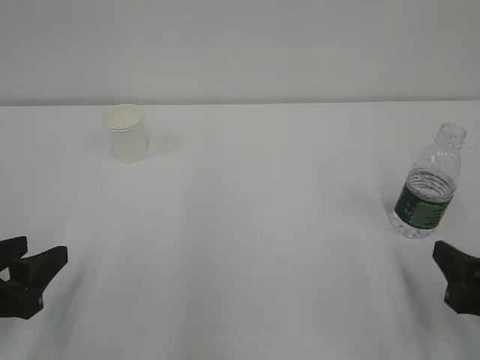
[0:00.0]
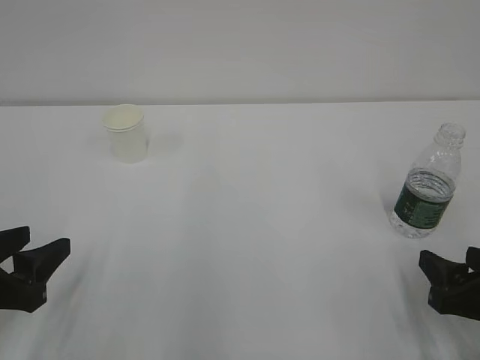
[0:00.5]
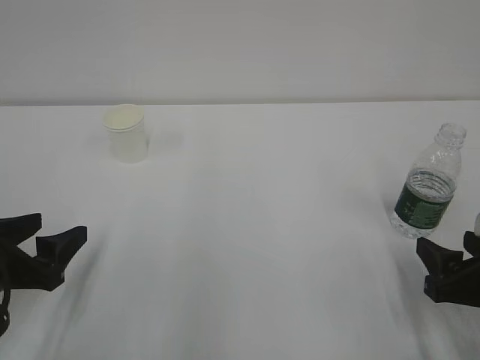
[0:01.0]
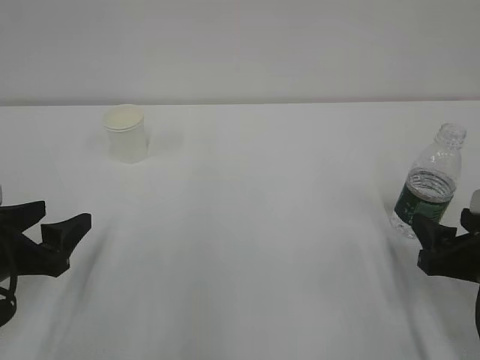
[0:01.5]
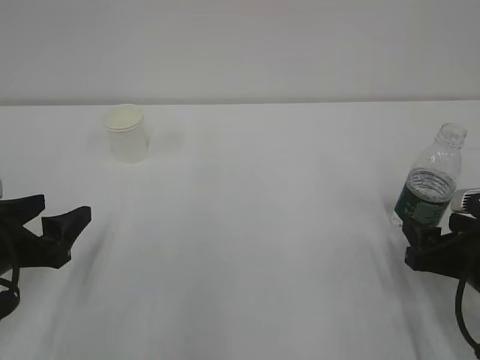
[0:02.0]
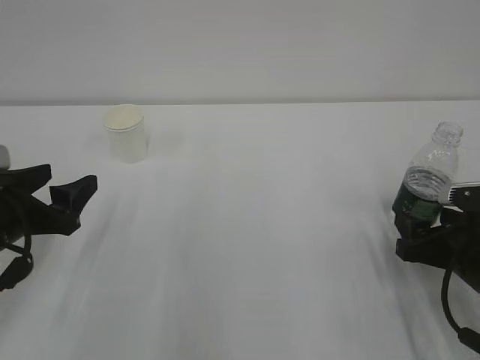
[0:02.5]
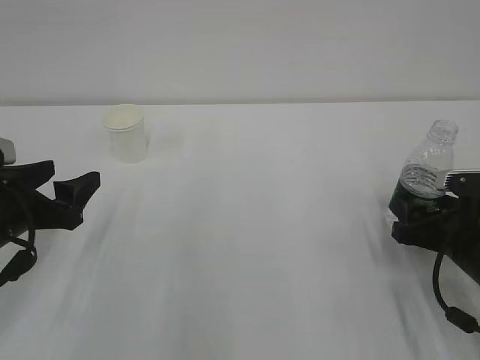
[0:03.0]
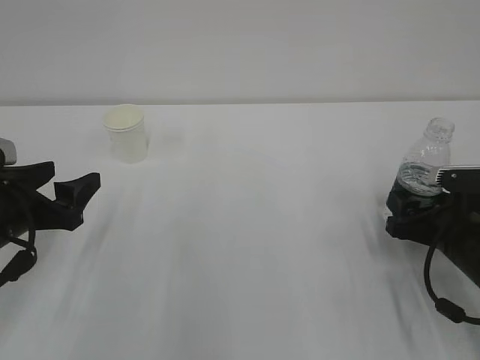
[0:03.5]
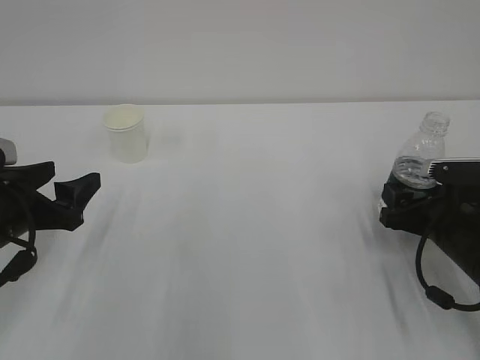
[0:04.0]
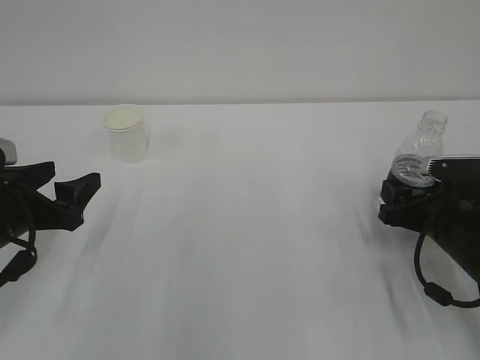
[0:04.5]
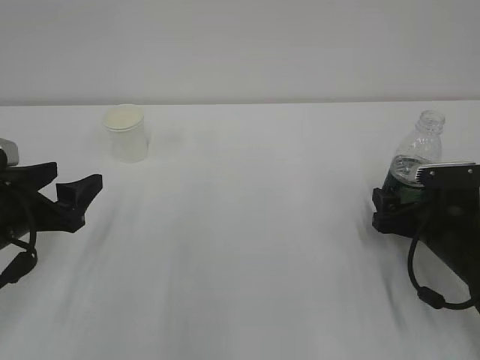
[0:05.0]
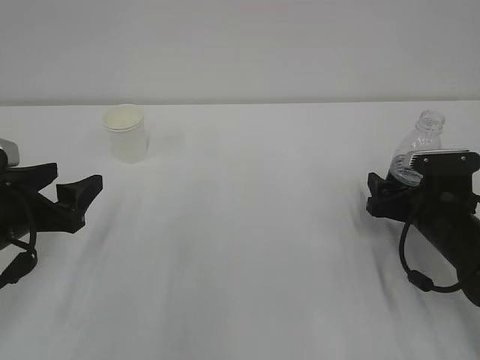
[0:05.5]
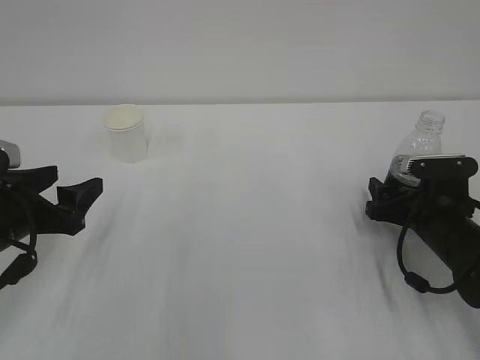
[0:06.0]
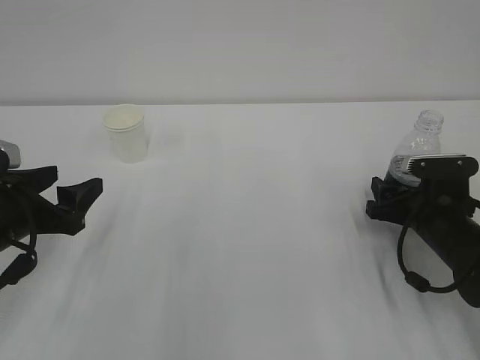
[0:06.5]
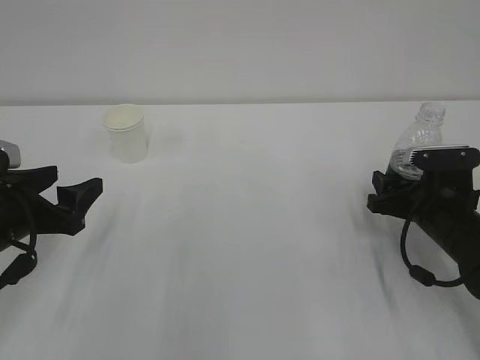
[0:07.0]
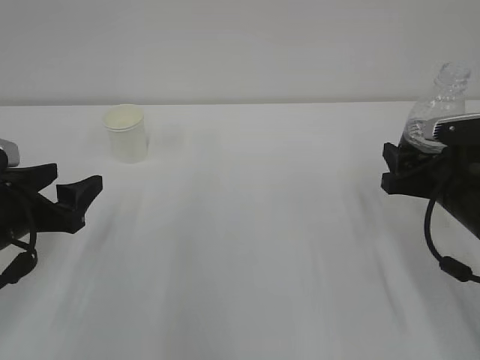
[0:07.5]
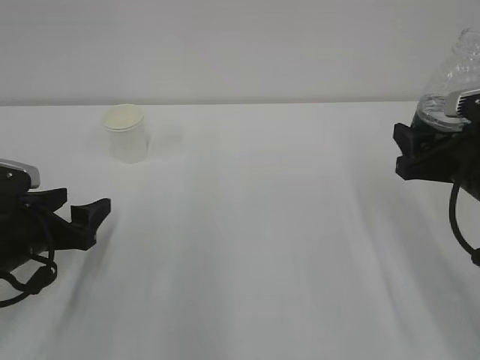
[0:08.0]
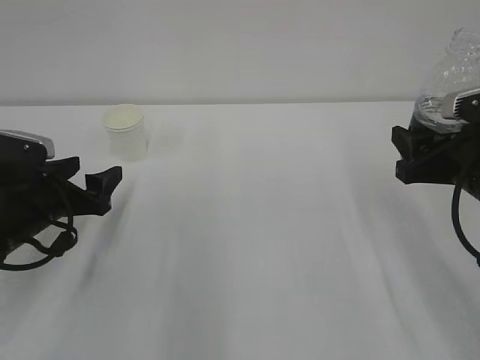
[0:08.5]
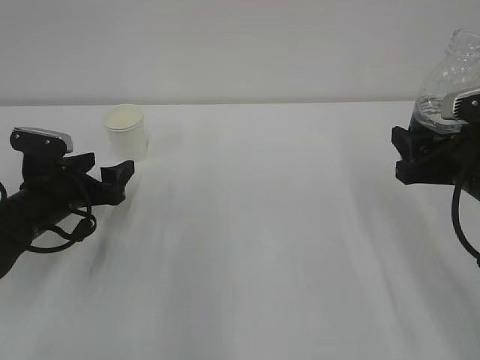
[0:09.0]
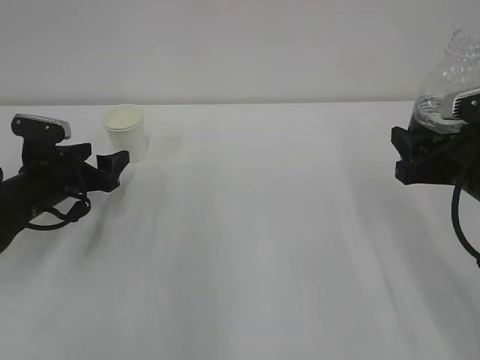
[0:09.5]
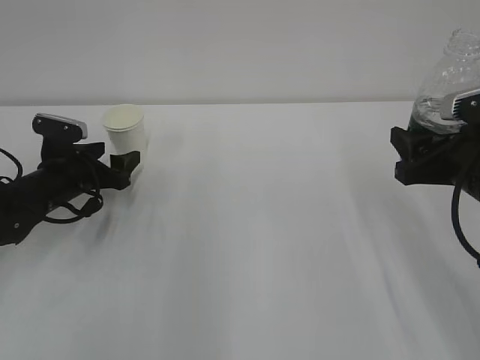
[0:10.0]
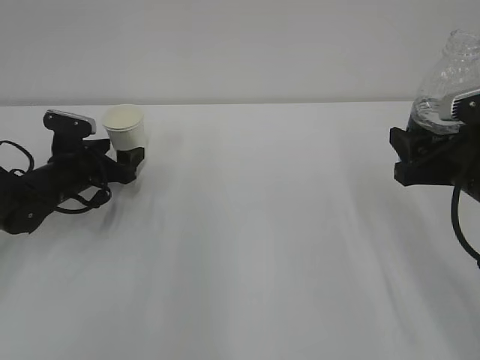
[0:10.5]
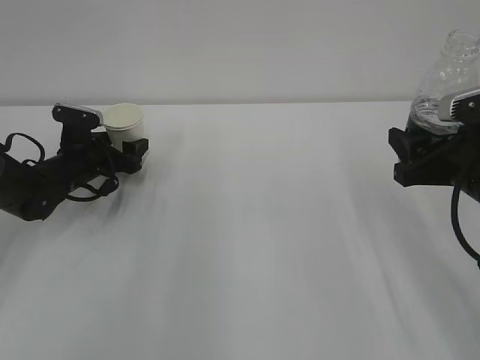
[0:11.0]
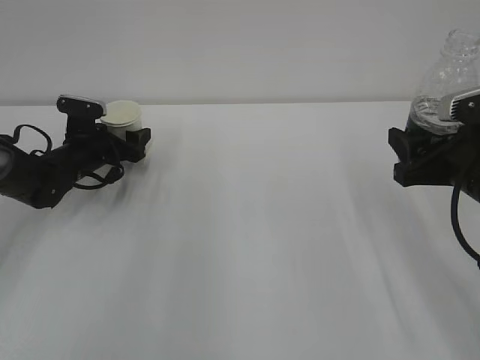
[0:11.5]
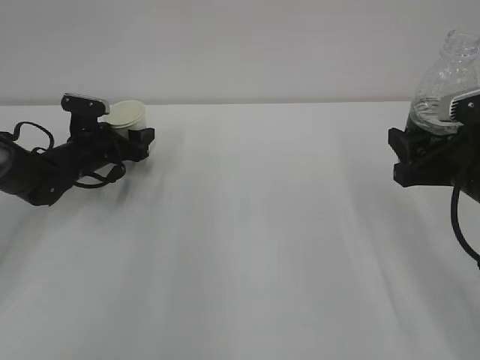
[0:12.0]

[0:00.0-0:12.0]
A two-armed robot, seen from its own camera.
0:00.0 to 0:02.0: The grippers both shift forward by about 5 cm. The left gripper opens up.
0:02.0 to 0:04.0: The right gripper moves forward, about 5 cm.
0:04.0 to 0:06.0: The grippers stay close to where they were, moving slightly.
0:06.0 to 0:08.0: The right gripper shifts roughly 10 cm upward.
0:08.0 to 0:10.0: The left gripper heads forward, covering some 15 cm.
0:10.0 to 0:12.0: The left gripper is displaced forward by approximately 10 cm, and closes its fingers.

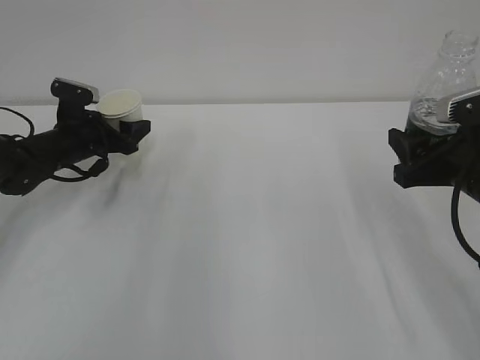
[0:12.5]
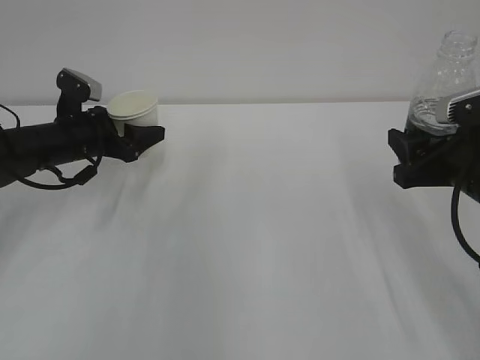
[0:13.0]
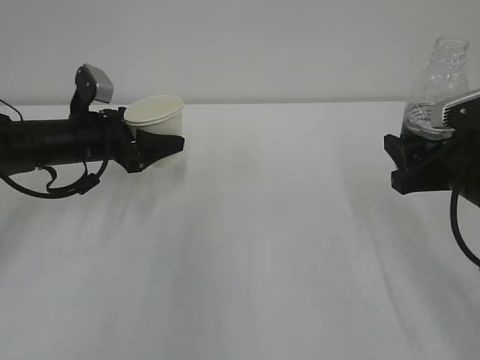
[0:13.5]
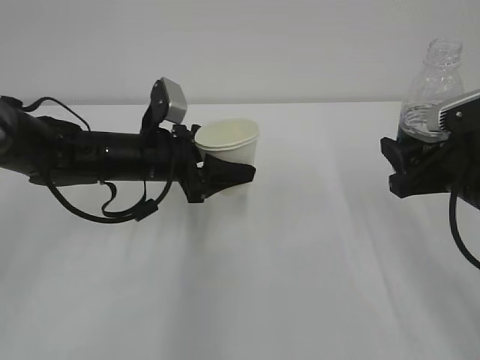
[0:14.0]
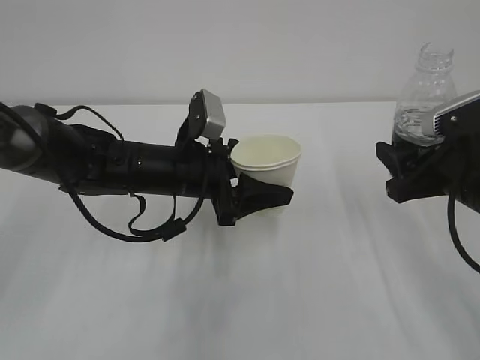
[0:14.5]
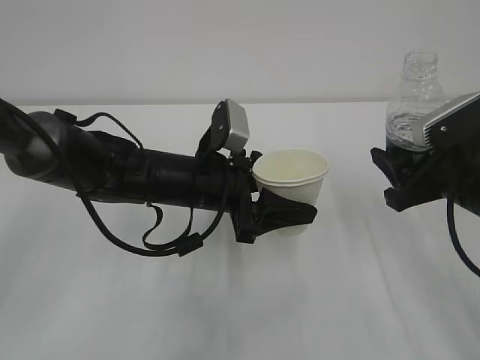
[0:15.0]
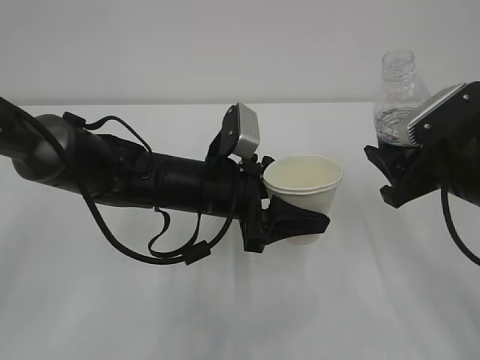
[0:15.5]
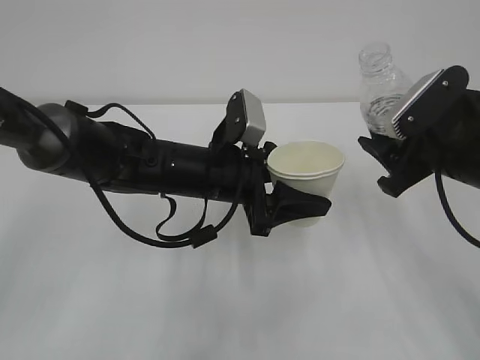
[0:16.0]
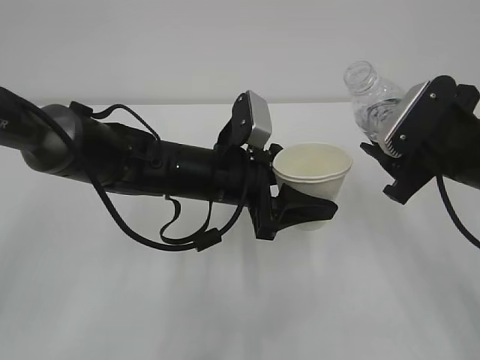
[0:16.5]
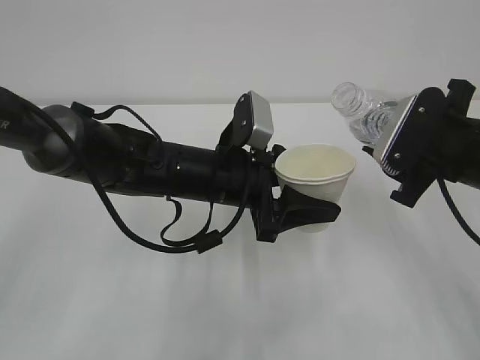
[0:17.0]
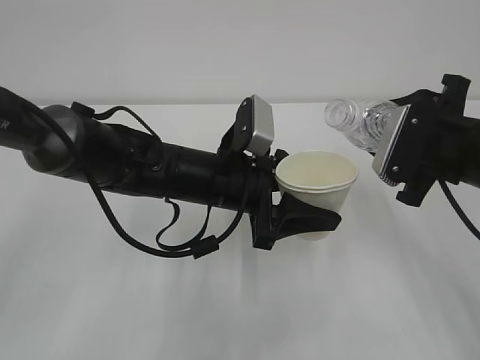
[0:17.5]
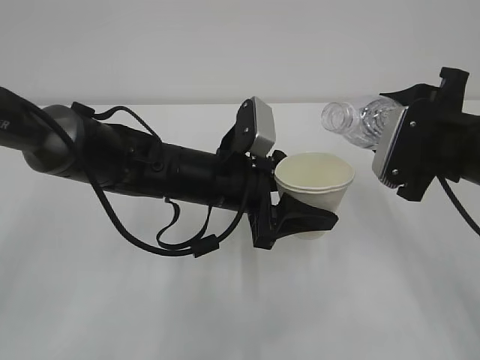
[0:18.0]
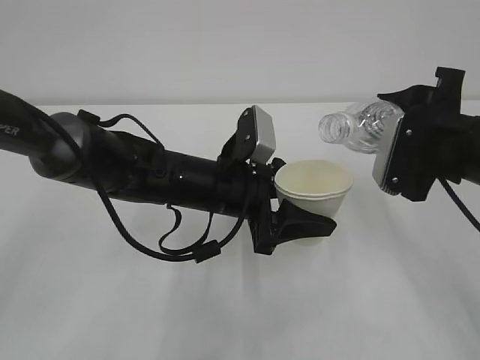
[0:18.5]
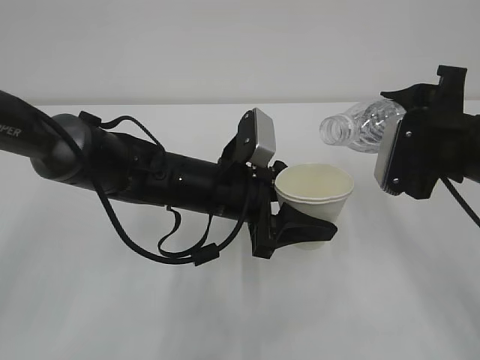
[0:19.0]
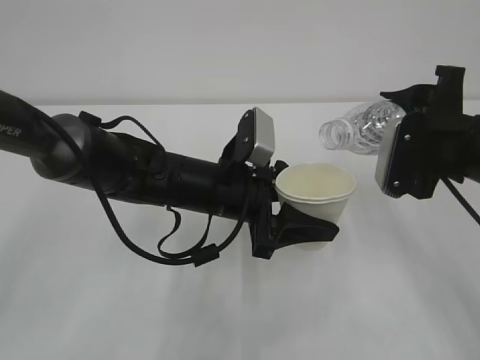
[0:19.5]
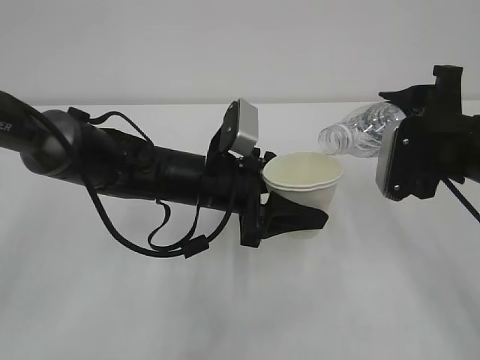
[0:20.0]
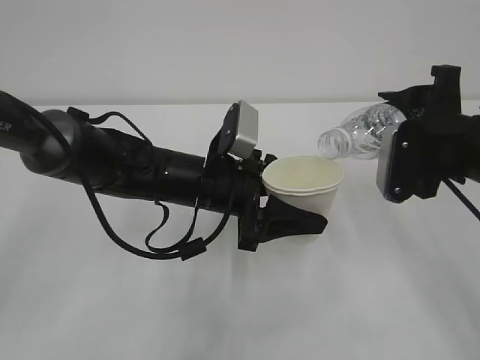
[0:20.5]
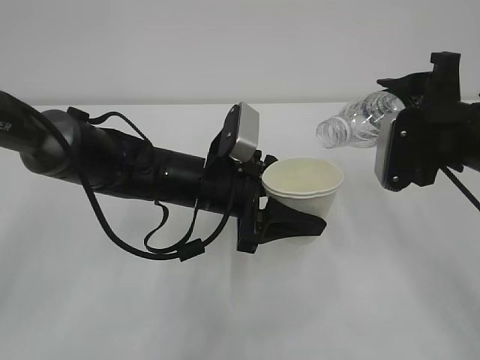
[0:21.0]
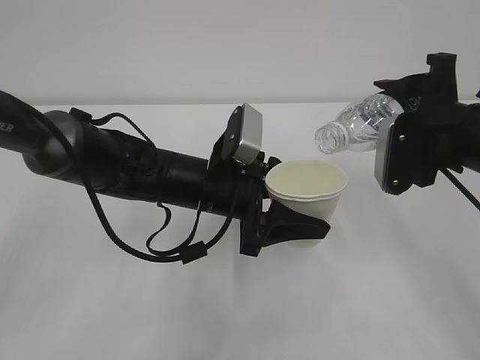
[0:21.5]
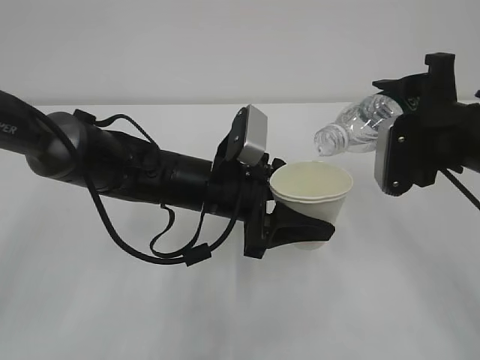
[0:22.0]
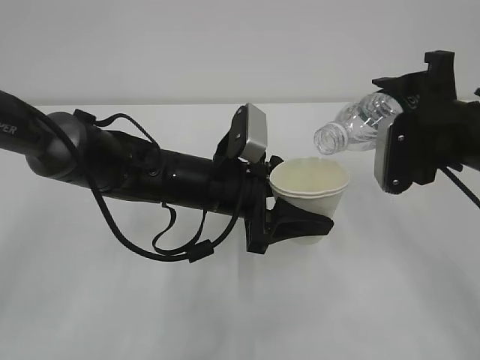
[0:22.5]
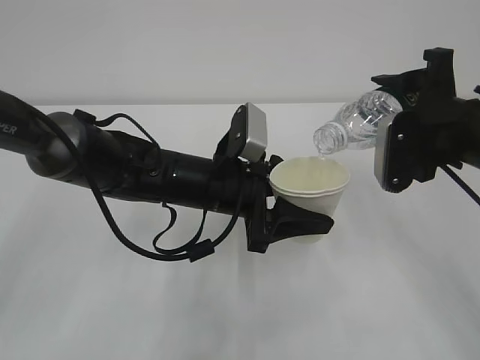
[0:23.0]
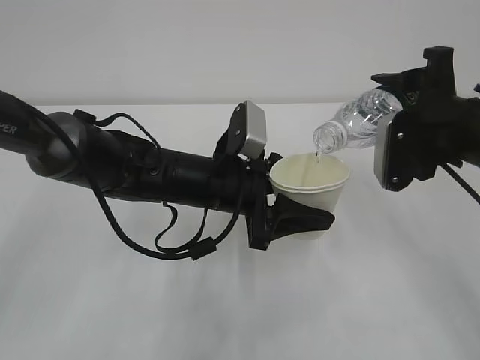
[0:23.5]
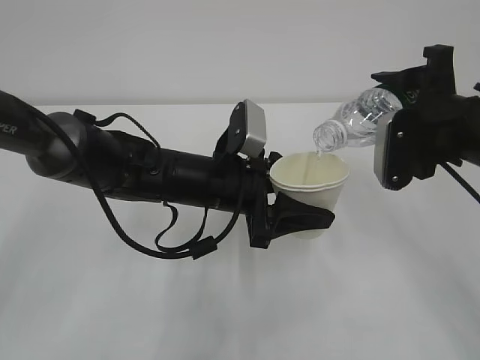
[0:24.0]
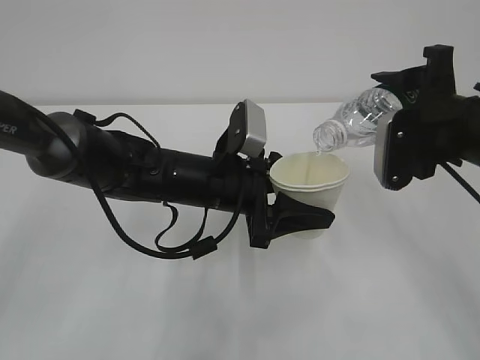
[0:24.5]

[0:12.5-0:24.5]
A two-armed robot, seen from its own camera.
0:12.5 to 0:14.5: The left gripper goes approximately 20 cm to the right and backward.
0:14.5 to 0:16.5: The left gripper ends up approximately 5 cm from where it was.
0:18.5 to 0:22.5: The grippers move only a little.
0:22.5 to 0:24.5: Both grippers stay put.

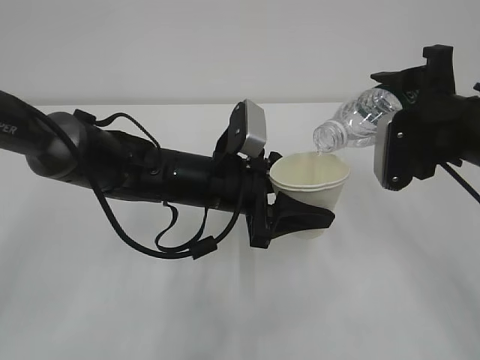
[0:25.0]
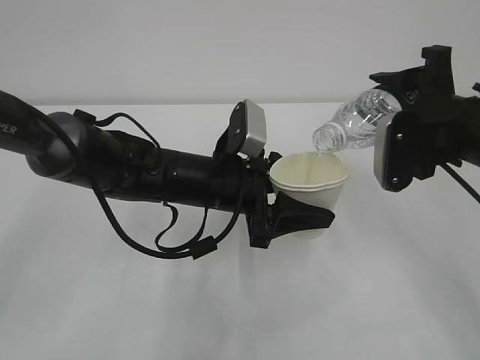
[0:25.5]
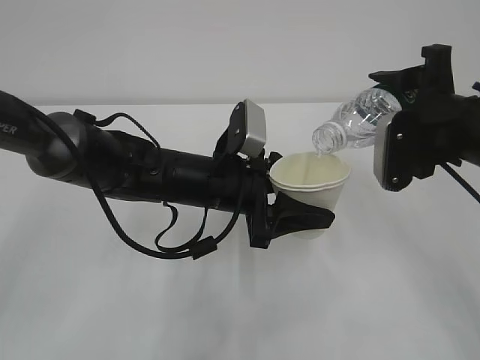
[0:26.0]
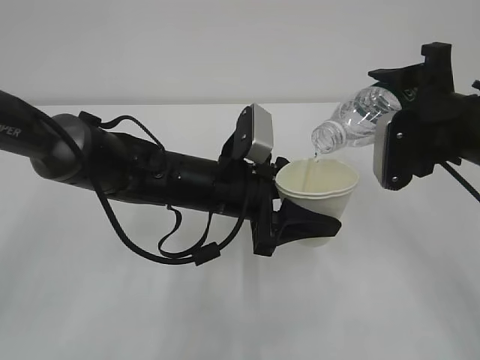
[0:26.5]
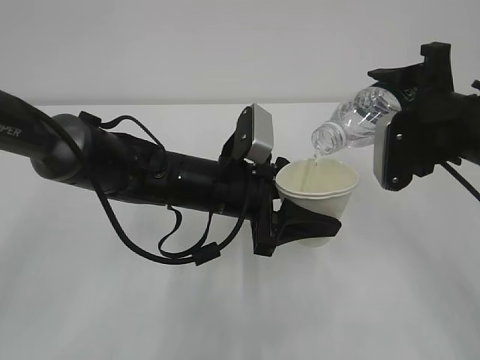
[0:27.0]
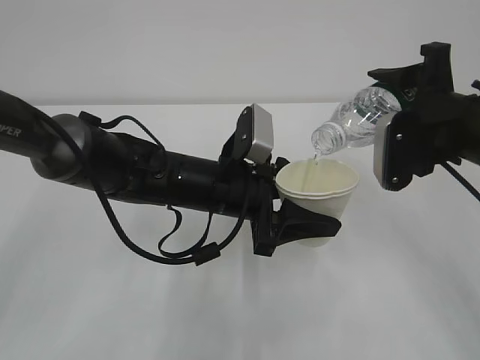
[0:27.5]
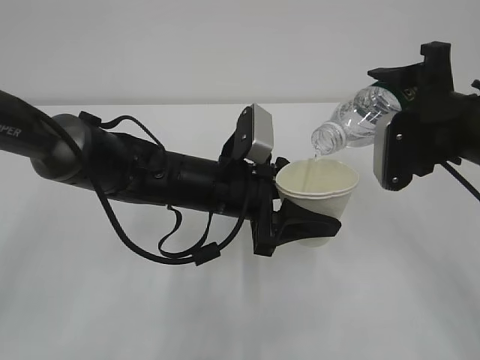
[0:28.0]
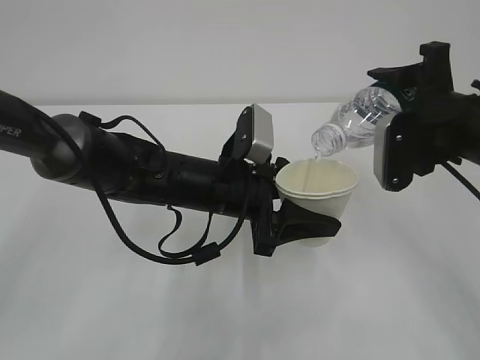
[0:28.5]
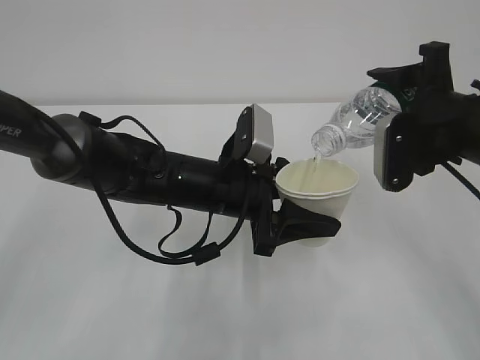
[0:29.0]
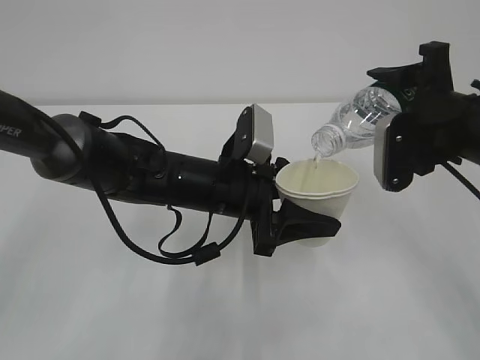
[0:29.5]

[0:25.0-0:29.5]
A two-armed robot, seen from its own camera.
0:25.0 to 0:29.5: Both grippers stay put.
